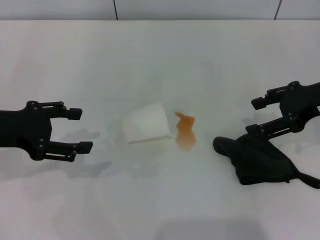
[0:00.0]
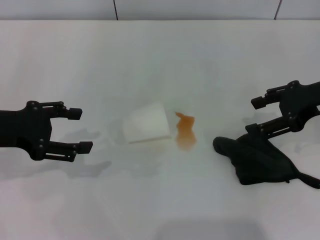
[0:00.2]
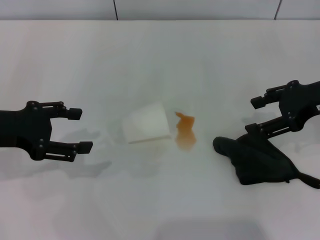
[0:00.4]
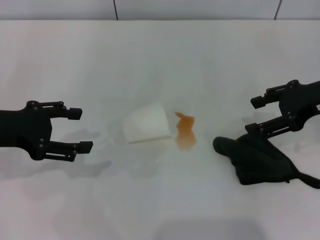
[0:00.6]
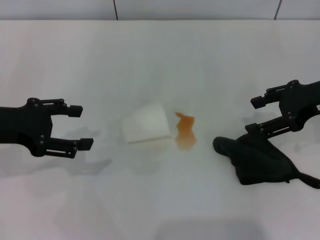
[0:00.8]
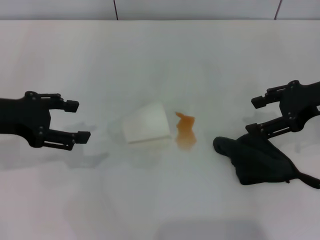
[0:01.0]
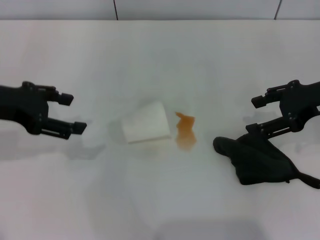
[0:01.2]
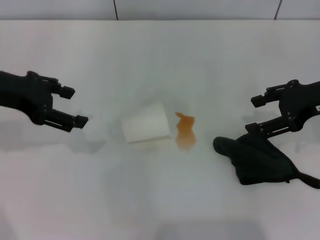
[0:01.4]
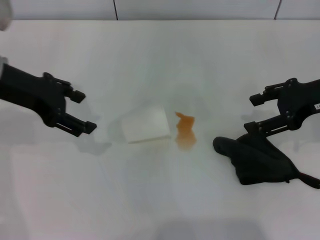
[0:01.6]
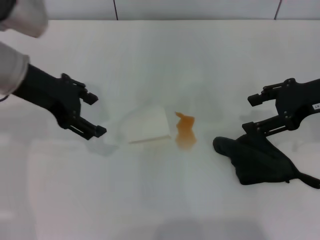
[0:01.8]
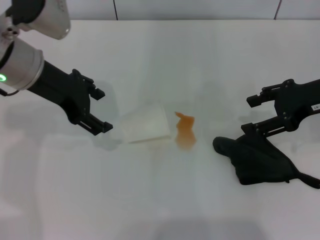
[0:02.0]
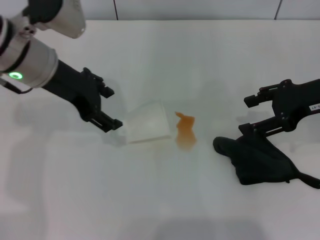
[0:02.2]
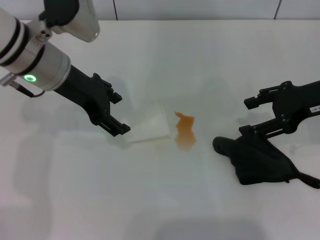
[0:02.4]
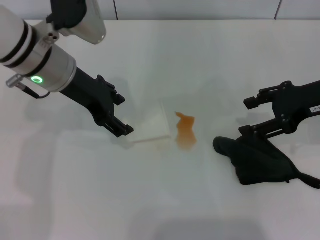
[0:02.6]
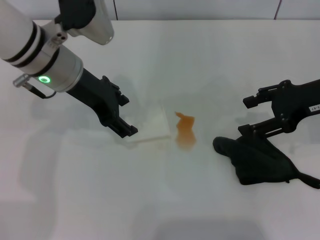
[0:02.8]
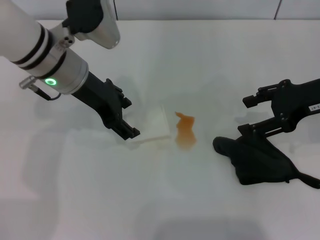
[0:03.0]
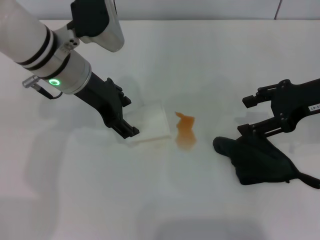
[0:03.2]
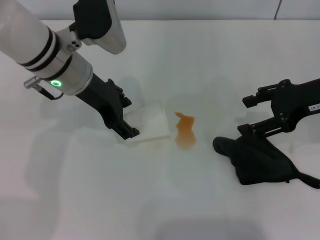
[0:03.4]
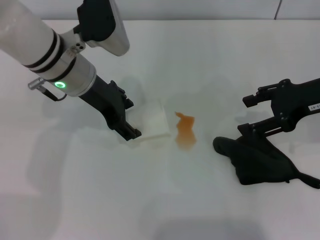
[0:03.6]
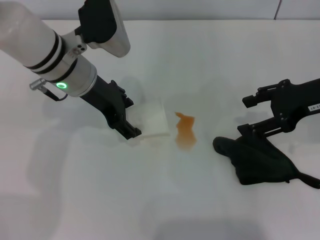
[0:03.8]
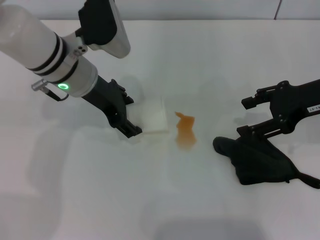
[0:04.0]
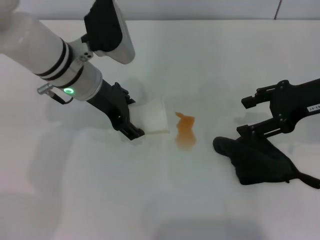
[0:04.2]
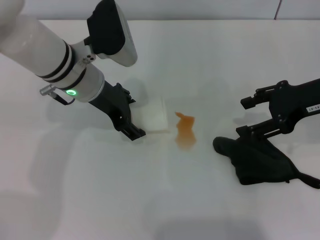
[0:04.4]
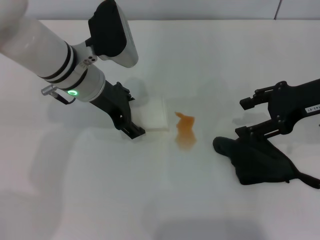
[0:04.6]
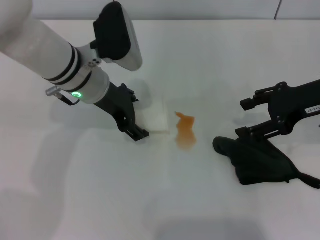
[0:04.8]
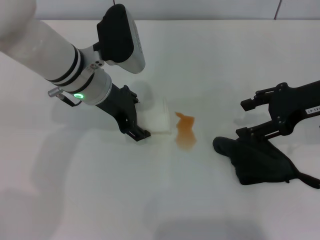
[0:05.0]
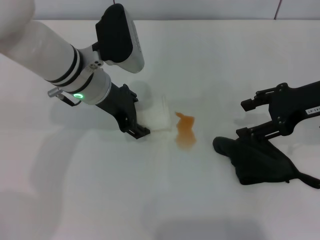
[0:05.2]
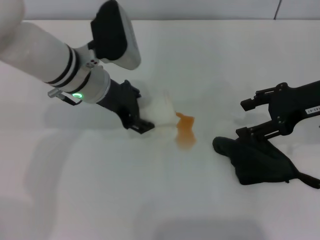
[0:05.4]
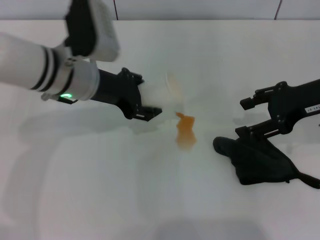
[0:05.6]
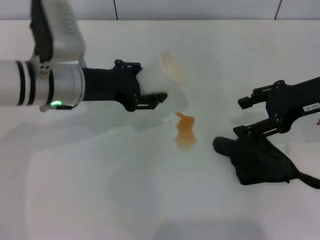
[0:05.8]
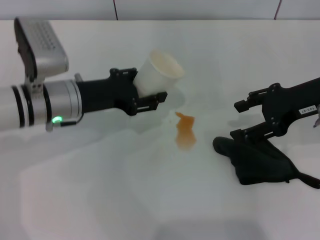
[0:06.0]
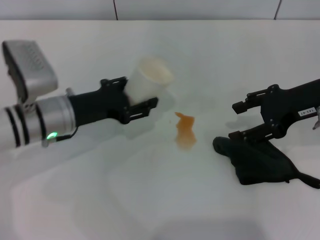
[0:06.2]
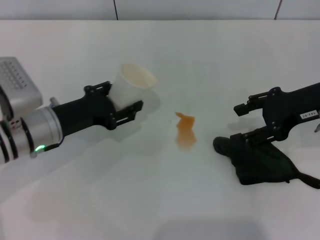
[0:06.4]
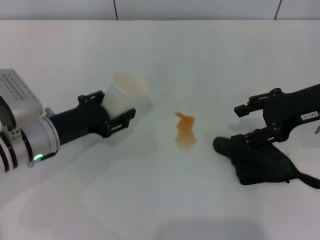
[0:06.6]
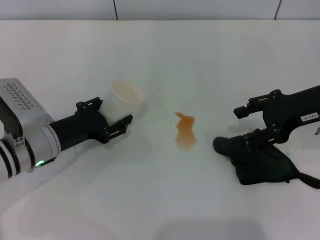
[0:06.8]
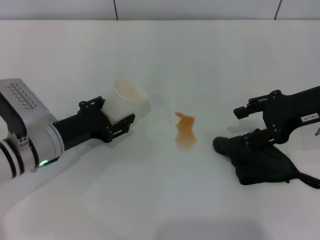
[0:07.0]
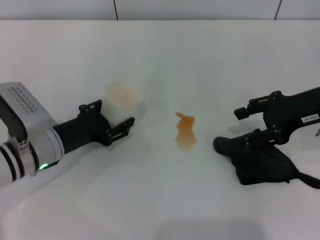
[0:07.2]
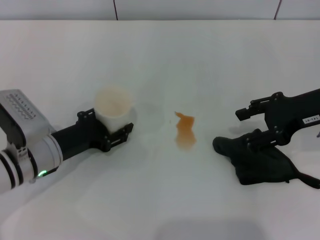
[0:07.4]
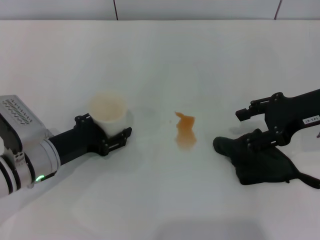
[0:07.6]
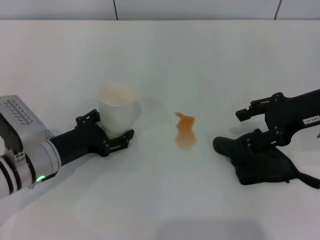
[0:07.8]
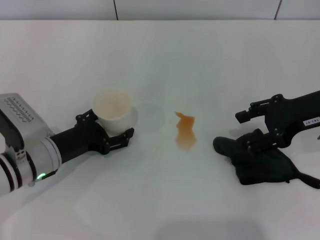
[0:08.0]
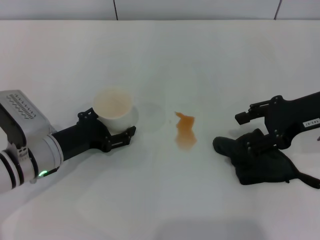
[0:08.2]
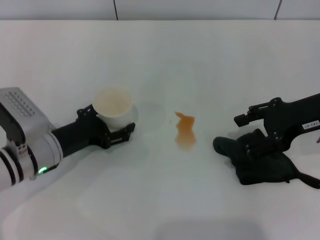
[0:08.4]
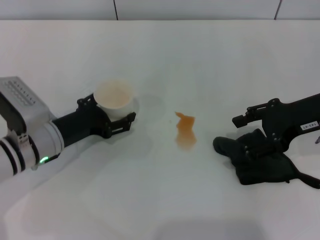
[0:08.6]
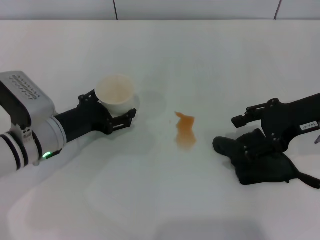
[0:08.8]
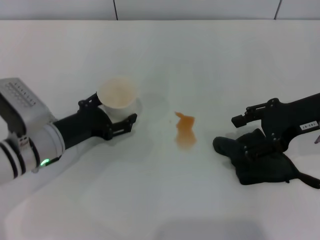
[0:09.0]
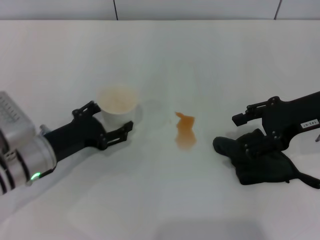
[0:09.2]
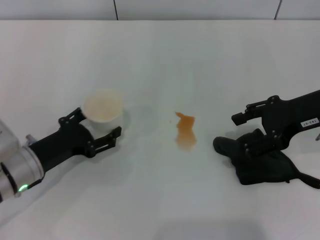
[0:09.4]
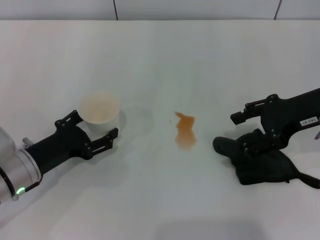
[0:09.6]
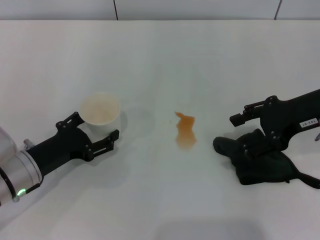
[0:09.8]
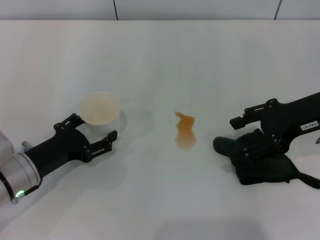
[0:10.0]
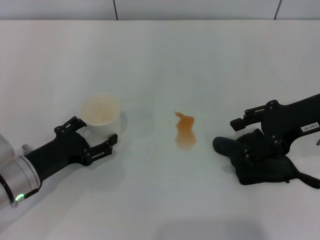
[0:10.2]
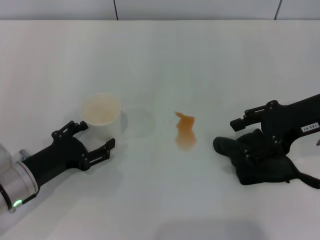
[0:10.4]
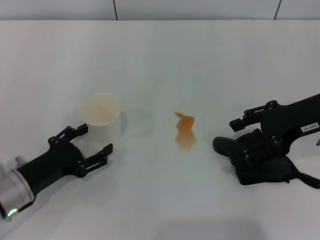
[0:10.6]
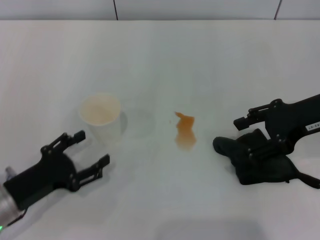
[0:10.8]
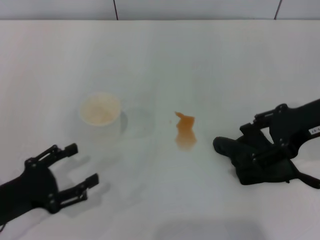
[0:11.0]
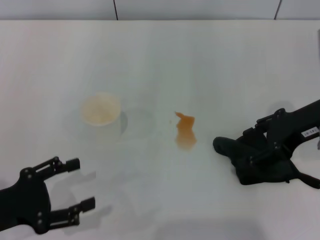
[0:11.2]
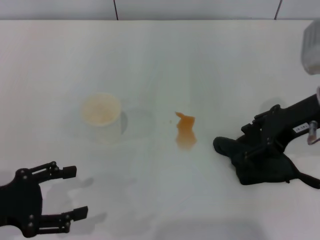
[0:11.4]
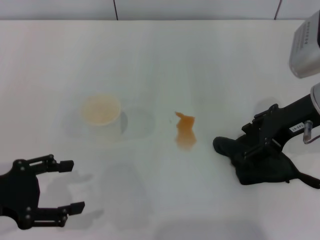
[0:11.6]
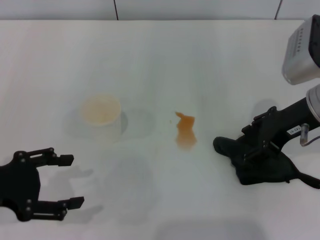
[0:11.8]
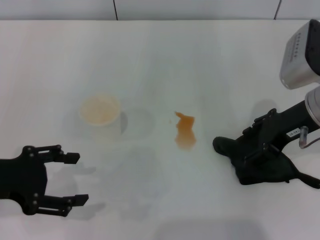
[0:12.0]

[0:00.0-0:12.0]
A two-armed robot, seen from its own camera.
Step, 0:00.0 to 0:04.8: Grasp the paper cup with the left gripper.
Step, 0:05.2 to 0:10.4: Stand the paper cup upright with the left gripper.
0:00.0 to 0:01.6: The left gripper travels forward and upward by roughly 10 cm.
0:01.6 to 0:03.0: The left gripper goes approximately 10 cm to the right.
0:03.0 to 0:04.4: There are only small adjustments of the grippers.
0:04.4 to 0:06.0: The left gripper travels to the left by roughly 5 cm, and closes up.
0:06.0 to 0:07.6: The left gripper shifts some 10 cm downward and backward.
0:07.6 to 0:09.0: The left gripper opens.
0:09.0 to 0:10.4: The left gripper heads backward, covering roughly 5 cm.
0:10.4 to 0:12.0: The left gripper heads upward, covering some 15 cm.

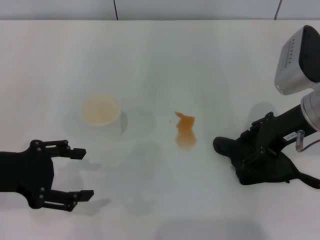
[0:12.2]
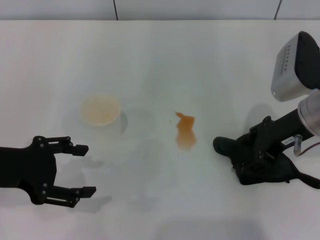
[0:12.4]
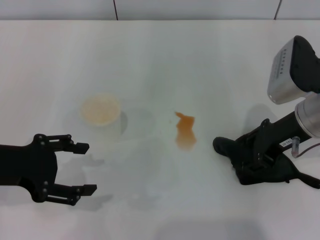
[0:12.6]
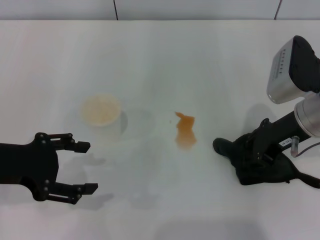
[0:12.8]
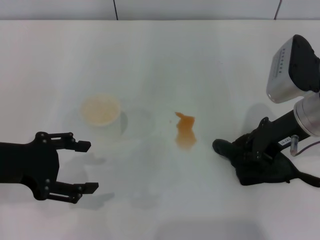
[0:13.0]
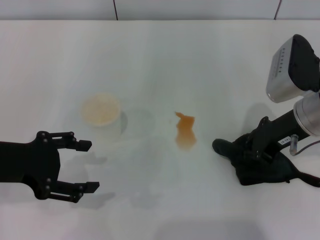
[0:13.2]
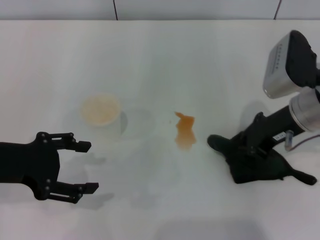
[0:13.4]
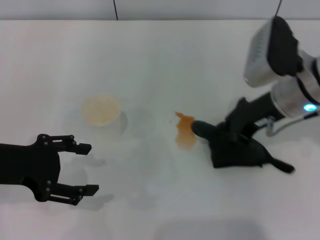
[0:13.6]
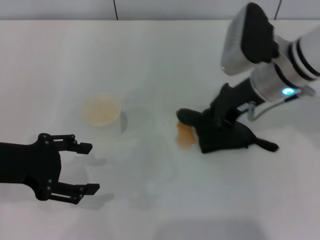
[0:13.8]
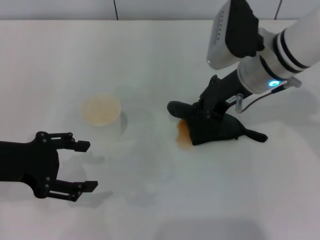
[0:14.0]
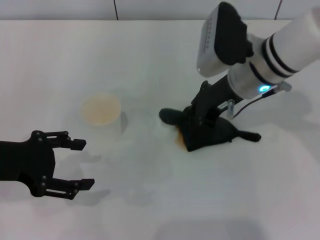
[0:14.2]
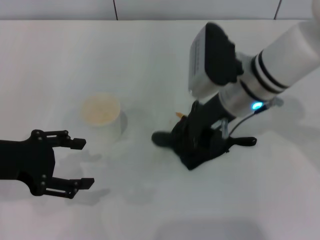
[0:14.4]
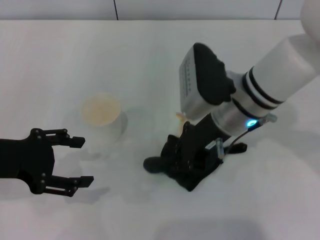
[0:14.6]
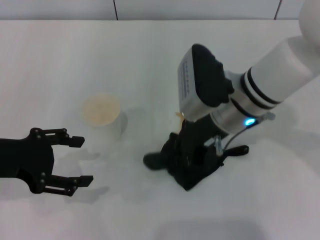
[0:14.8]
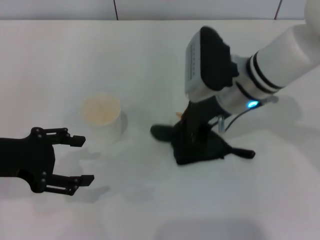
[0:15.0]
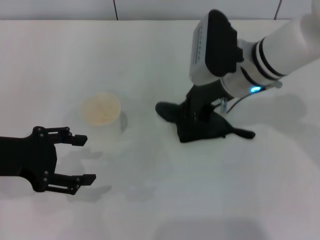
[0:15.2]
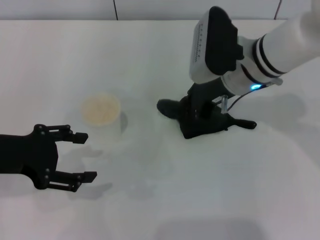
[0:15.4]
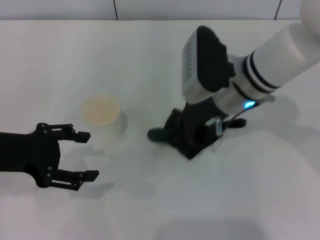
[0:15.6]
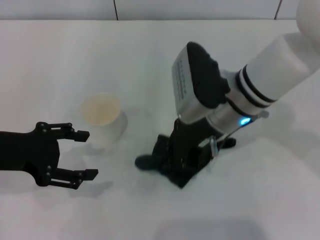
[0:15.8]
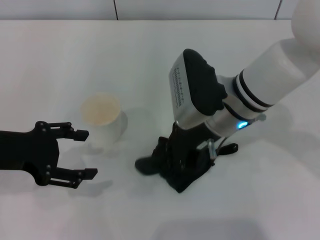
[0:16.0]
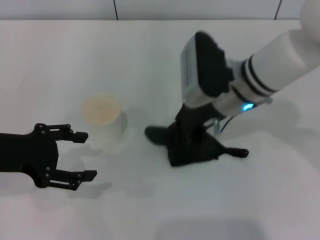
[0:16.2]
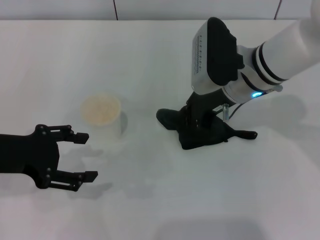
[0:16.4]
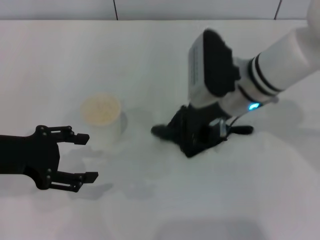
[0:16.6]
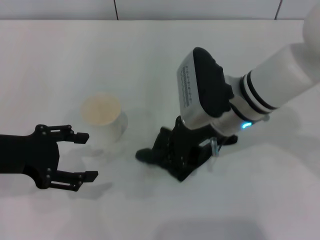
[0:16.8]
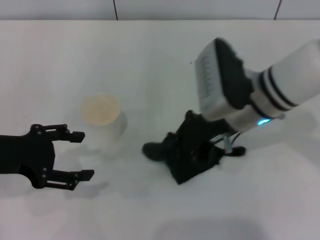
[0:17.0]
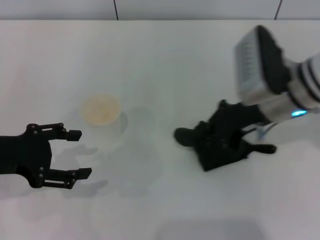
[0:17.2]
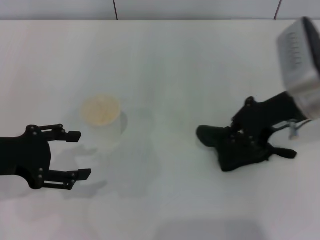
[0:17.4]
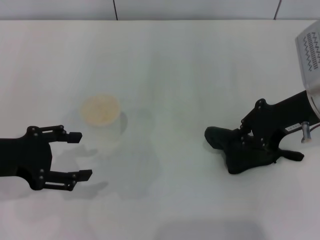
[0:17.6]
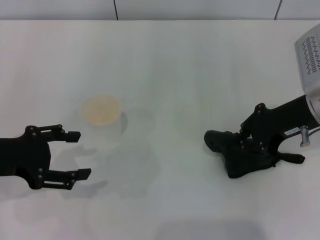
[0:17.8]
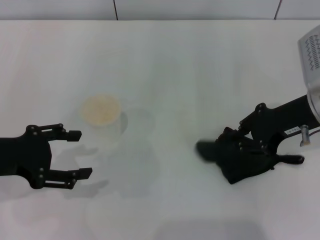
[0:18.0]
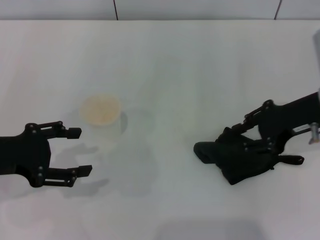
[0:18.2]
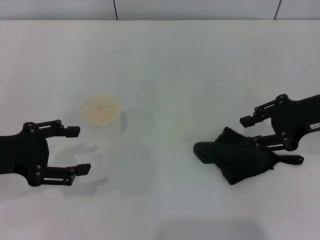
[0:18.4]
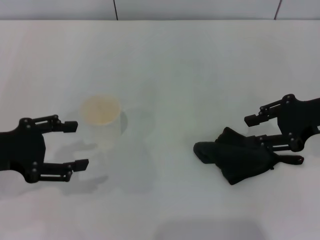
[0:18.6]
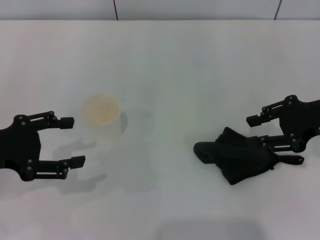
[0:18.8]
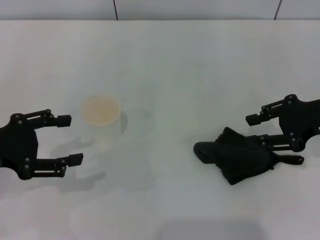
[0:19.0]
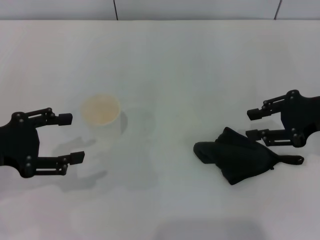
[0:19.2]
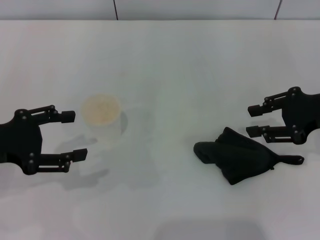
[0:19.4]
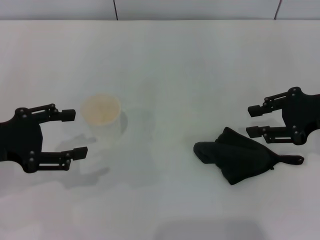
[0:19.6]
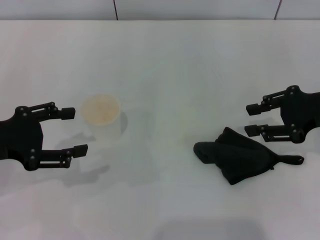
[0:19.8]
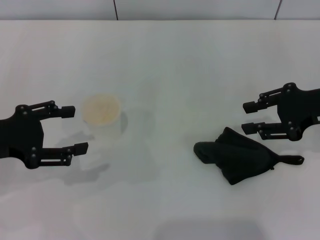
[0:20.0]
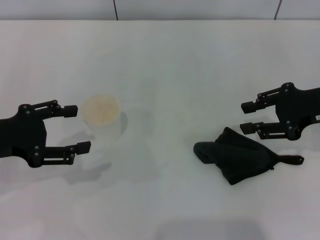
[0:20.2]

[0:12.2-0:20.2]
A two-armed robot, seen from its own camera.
Step, 0:13.4 to 0:17.4: Wipe the stains off the table with the right gripper.
Step, 0:17.6 to 0:18.6: Place the rag on the table with the right gripper.
0:12.2 to 0:13.8: The right gripper is displaced to the left by about 5 cm, and closes up.
0:15.4 to 0:17.0: The right gripper moves forward and backward over some 5 cm, changing direction 2 times.
0:17.0 to 0:18.6: The right gripper travels to the right by some 15 cm, and opens its fingers.
0:18.6 to 0:20.2: There are only small adjustments of the grippers.

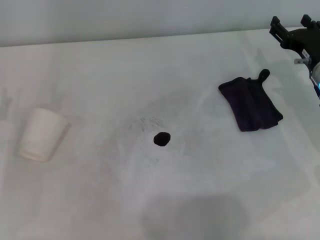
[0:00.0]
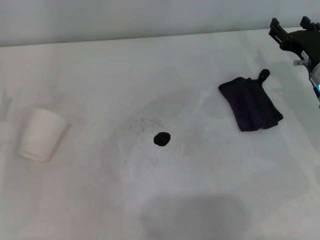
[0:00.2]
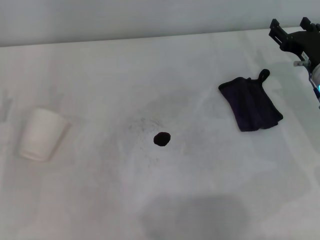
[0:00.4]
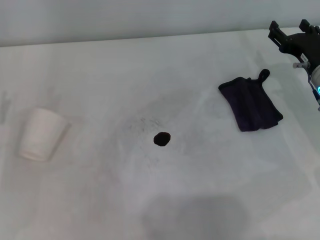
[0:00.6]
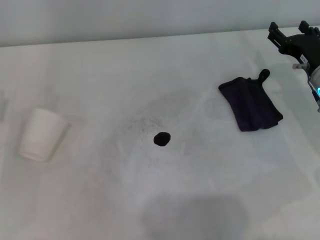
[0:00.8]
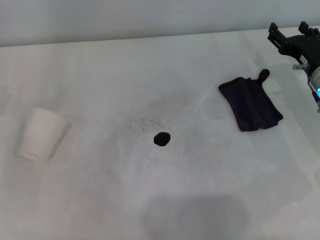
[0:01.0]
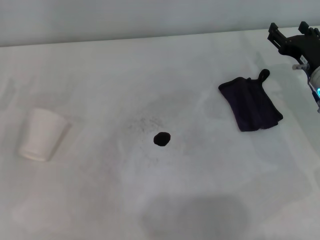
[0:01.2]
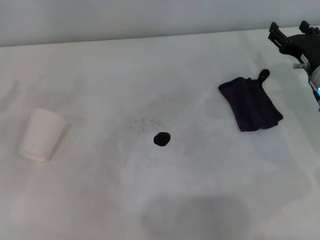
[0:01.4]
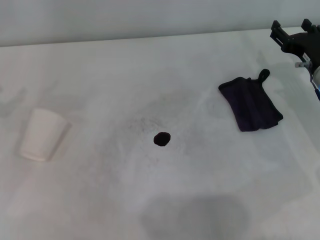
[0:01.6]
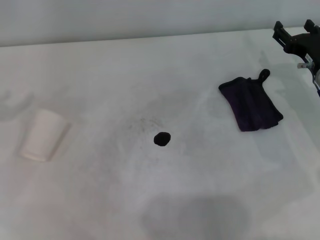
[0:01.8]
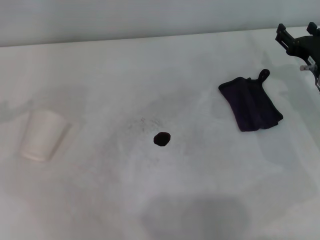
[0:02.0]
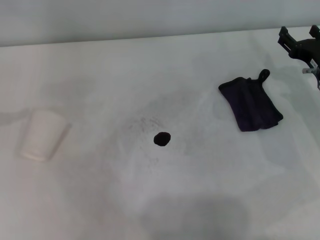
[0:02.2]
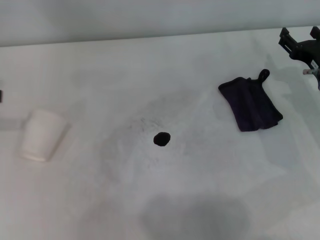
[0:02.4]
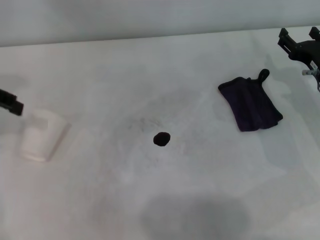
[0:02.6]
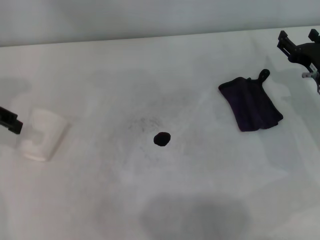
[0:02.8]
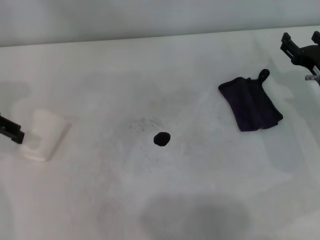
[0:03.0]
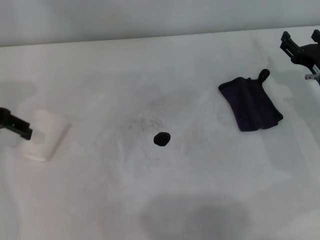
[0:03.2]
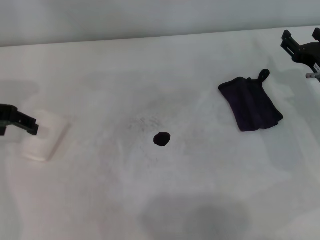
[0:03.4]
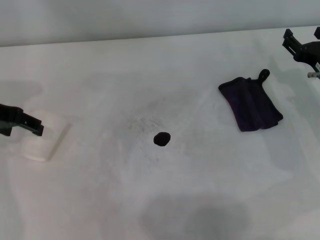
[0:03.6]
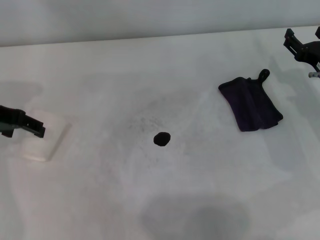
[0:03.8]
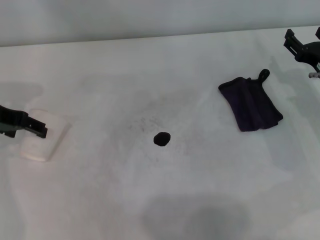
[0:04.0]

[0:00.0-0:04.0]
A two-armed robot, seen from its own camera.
0:02.6 to 0:04.0: The left gripper is displaced downward by some 10 cm.
